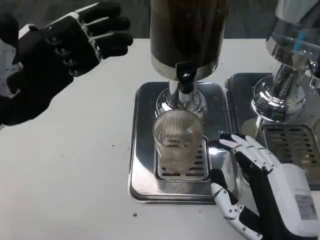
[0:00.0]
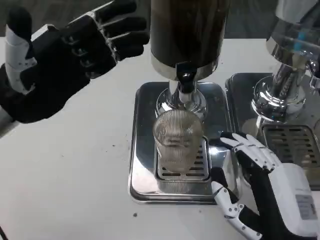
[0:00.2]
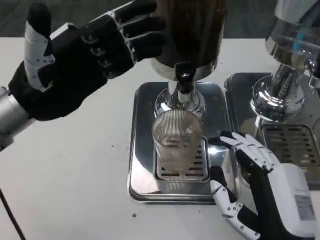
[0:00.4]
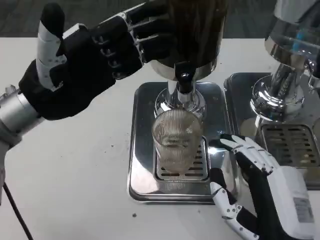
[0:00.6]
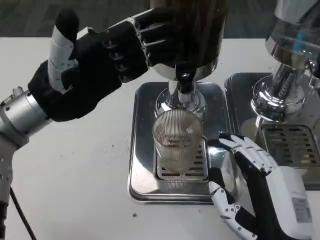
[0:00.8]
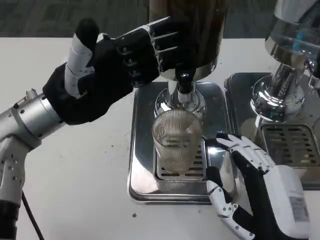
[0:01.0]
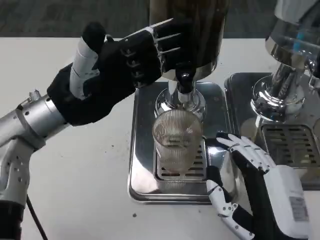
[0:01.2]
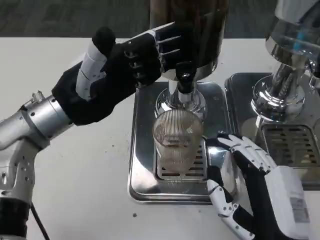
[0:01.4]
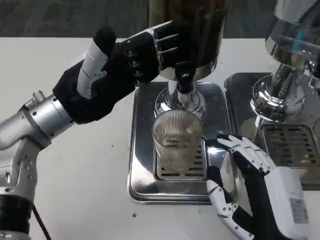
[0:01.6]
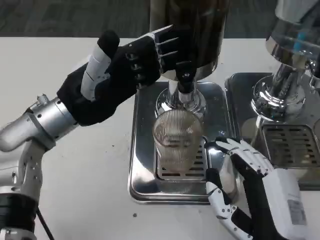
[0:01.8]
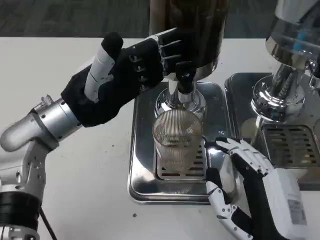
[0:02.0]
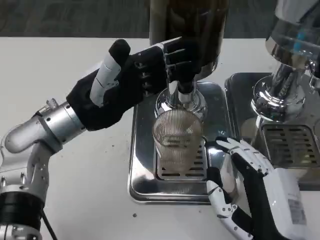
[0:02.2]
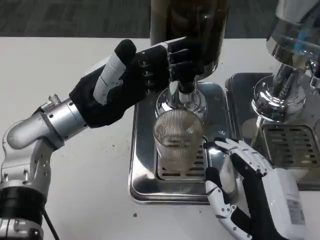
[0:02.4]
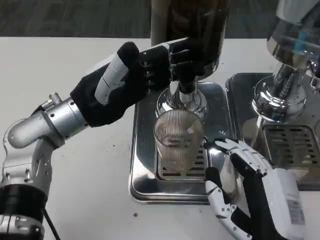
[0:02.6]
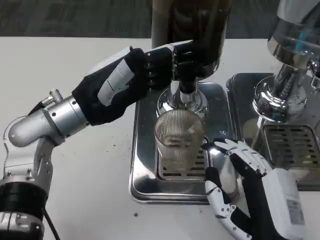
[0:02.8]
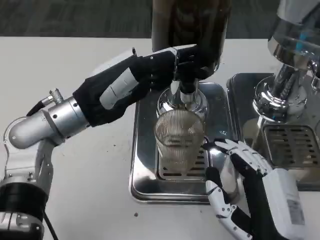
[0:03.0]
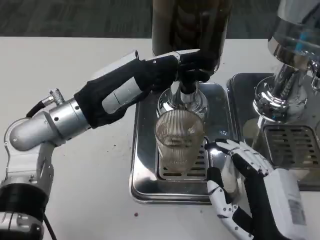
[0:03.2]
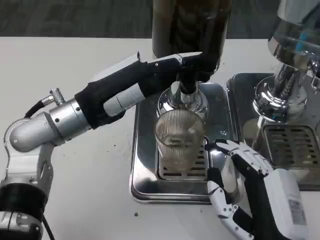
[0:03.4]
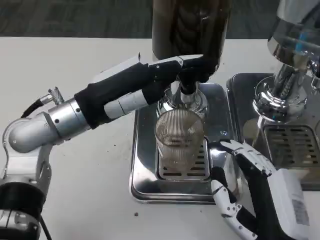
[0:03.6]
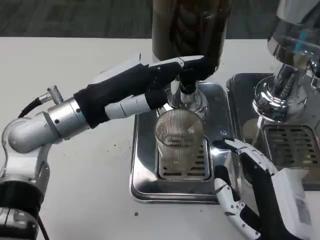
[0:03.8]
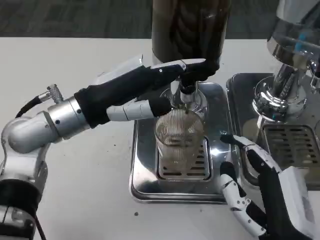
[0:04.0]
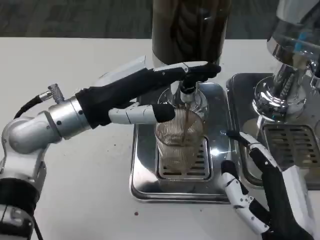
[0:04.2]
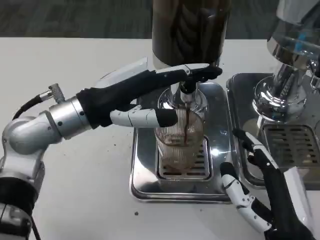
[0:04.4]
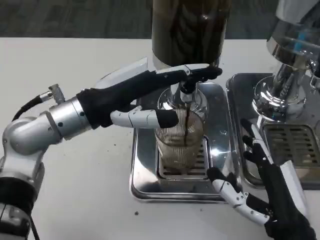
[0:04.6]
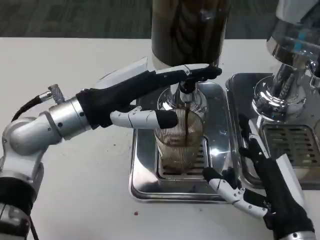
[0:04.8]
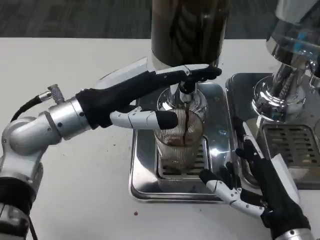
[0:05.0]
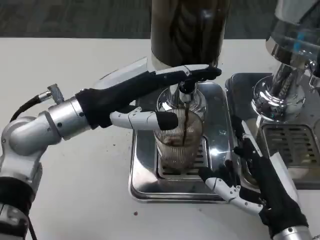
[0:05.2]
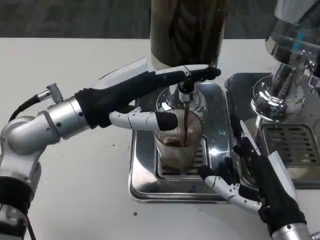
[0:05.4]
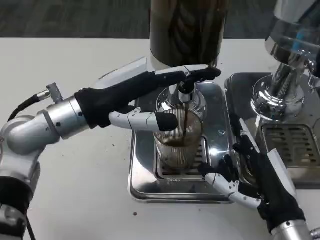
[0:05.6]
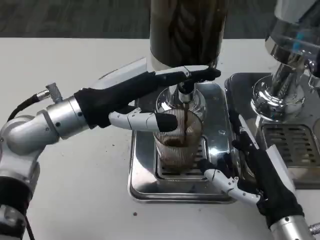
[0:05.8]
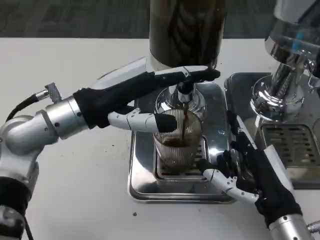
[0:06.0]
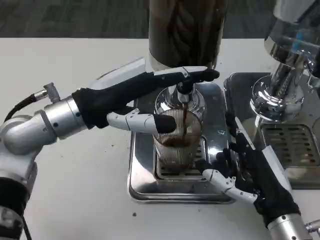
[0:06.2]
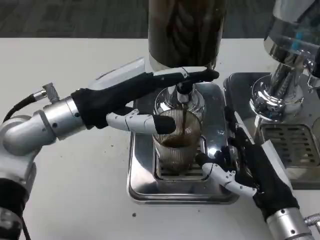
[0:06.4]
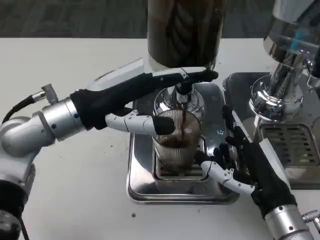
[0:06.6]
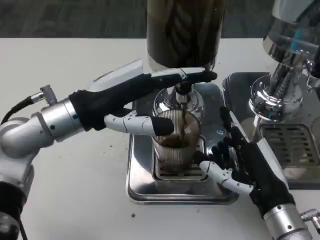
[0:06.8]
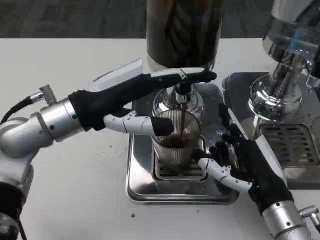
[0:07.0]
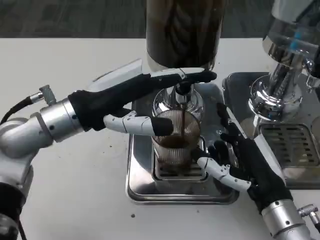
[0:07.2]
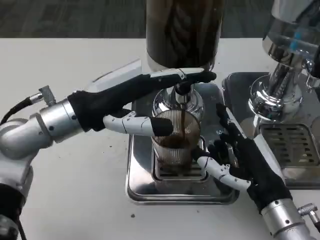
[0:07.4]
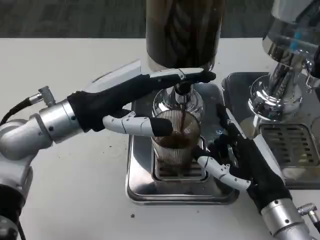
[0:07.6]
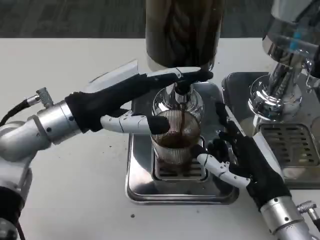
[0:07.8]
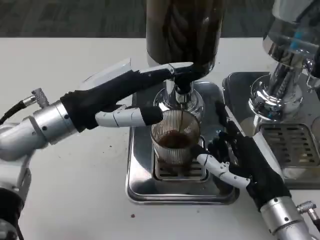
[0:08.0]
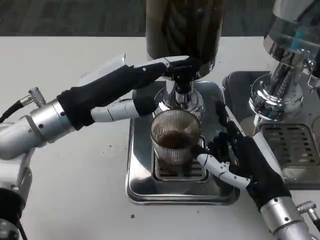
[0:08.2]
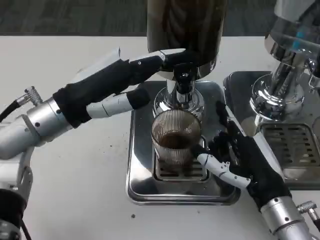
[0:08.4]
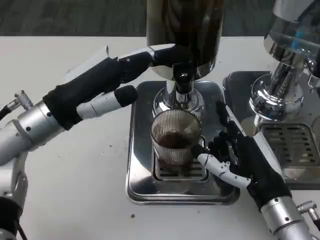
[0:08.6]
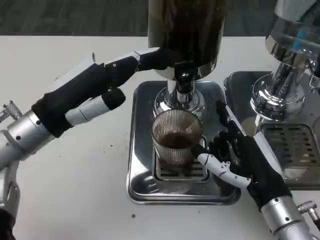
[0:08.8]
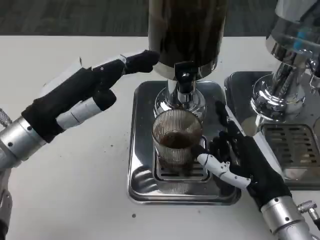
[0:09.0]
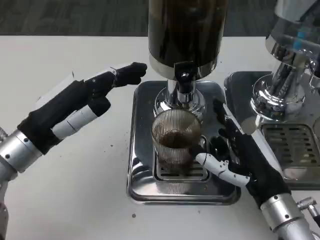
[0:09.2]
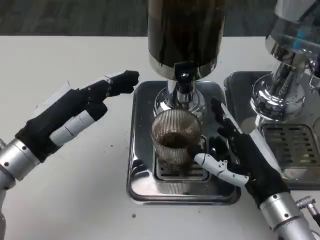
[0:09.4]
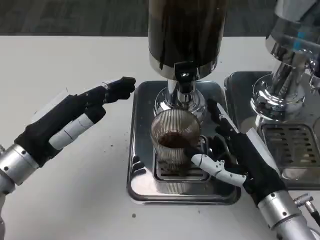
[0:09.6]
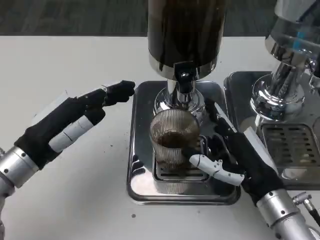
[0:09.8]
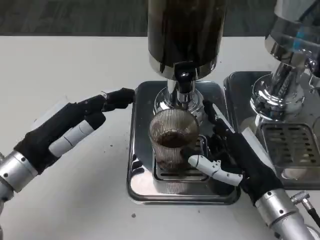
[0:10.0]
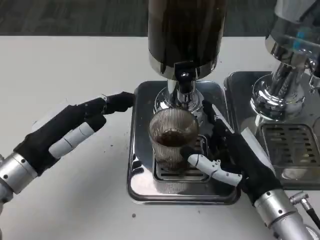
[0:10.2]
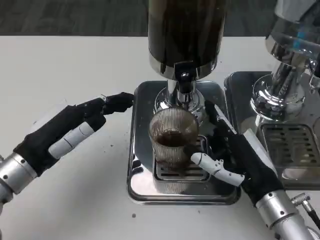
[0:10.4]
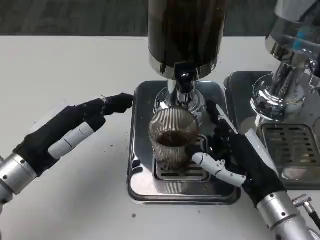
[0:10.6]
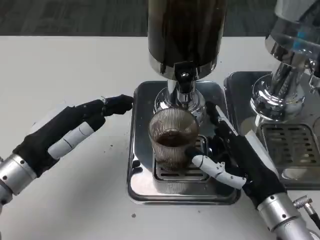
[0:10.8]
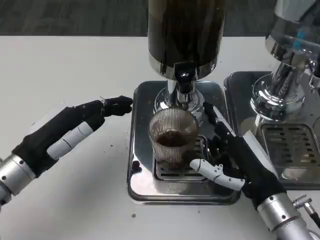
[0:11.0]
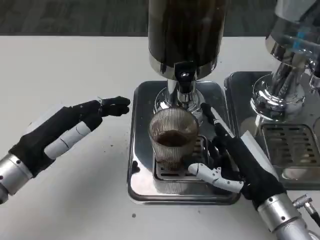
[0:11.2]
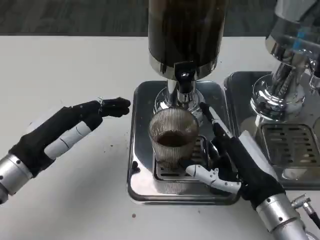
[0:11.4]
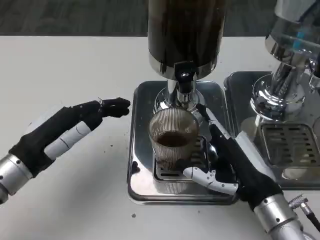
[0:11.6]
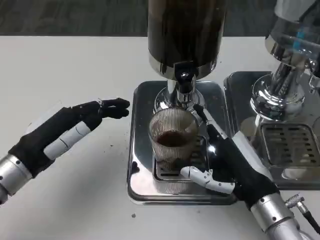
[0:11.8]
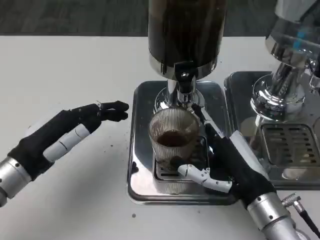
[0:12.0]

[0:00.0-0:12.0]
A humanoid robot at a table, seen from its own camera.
Task of the whole recording: Grasp the cup under the faucet to collect the drink, then remove the cup.
0:00.0 to 0:01.6: The left hand moves to the right, some 5 cm.
0:04.4 to 0:06.0: The right hand moves forward, about 5 cm.
0:07.6 to 0:09.0: The left hand ends up some 5 cm from where it was.
0:09.0 to 0:10.4: The left hand changes place by about 5 cm.
0:10.4 to 0:12.0: The hands stay close to where they were, moving slightly.

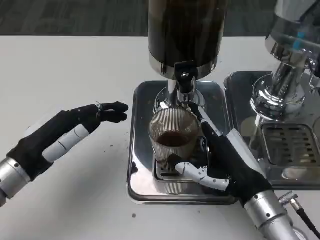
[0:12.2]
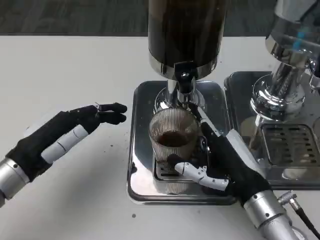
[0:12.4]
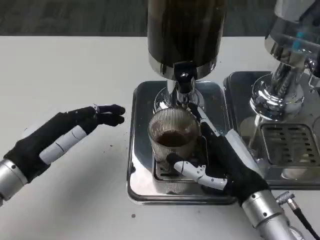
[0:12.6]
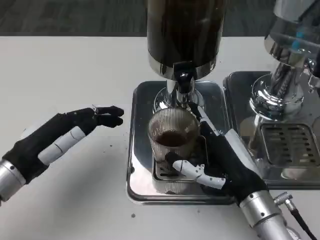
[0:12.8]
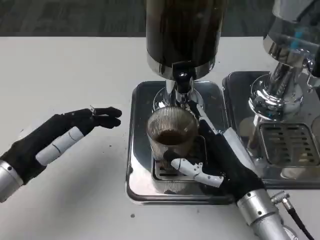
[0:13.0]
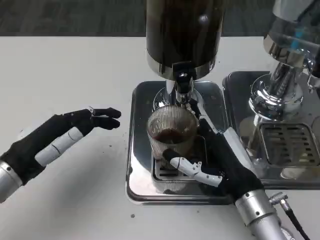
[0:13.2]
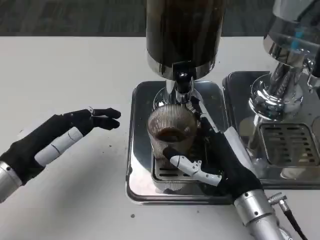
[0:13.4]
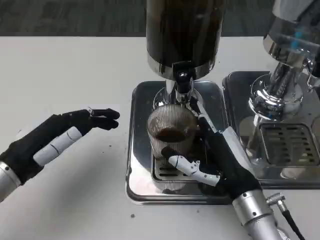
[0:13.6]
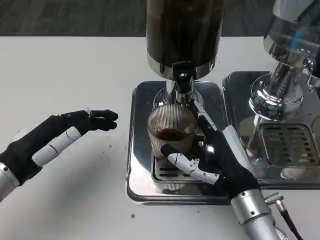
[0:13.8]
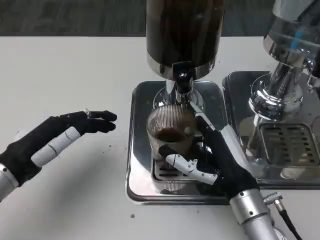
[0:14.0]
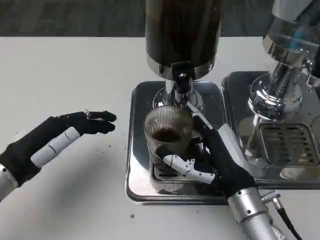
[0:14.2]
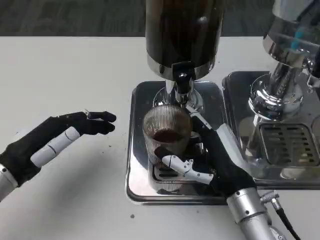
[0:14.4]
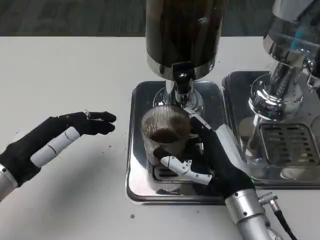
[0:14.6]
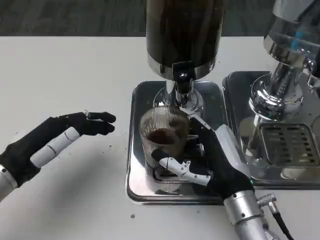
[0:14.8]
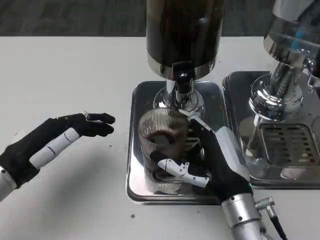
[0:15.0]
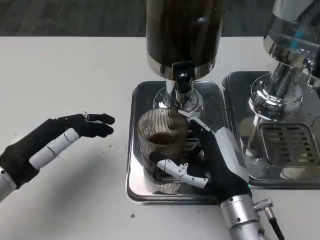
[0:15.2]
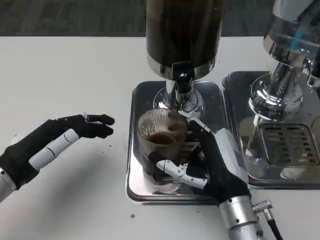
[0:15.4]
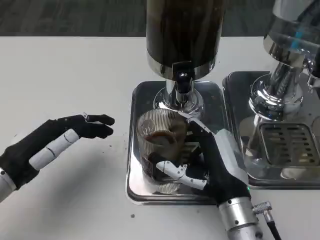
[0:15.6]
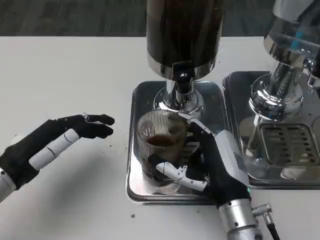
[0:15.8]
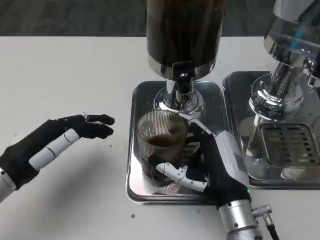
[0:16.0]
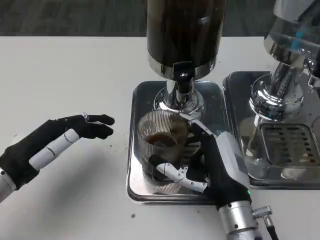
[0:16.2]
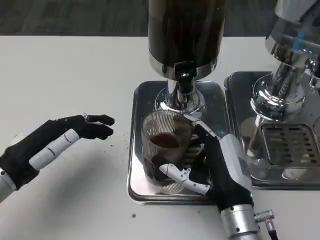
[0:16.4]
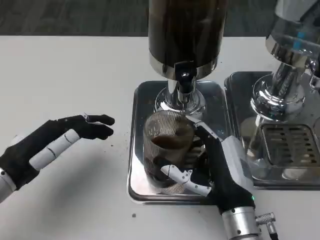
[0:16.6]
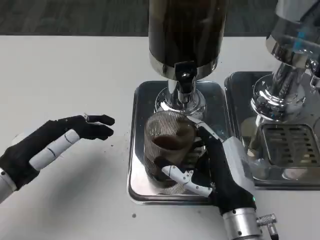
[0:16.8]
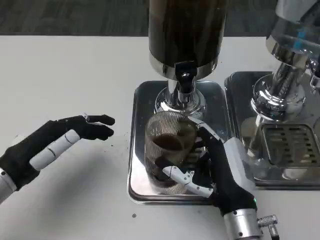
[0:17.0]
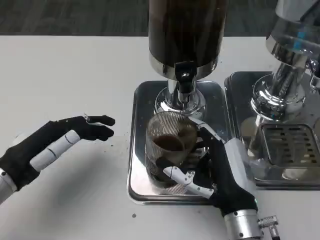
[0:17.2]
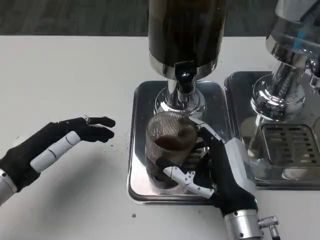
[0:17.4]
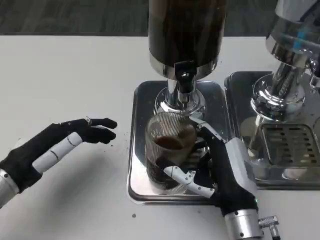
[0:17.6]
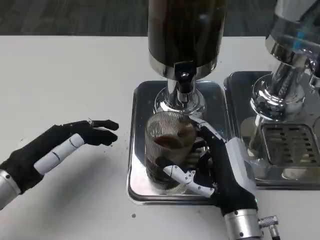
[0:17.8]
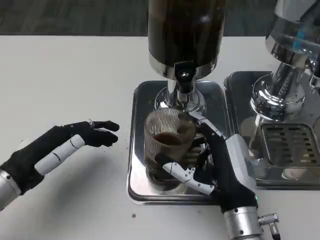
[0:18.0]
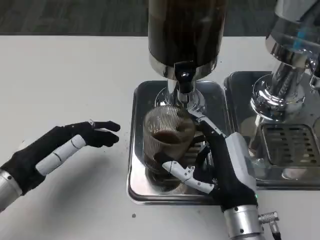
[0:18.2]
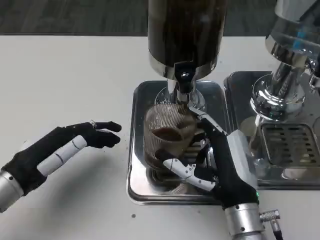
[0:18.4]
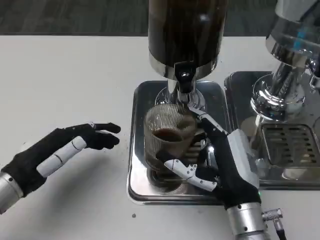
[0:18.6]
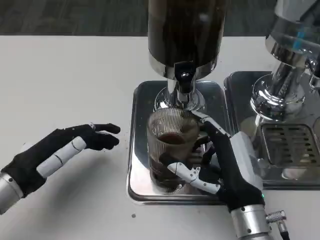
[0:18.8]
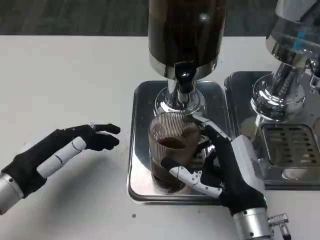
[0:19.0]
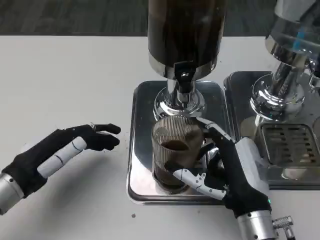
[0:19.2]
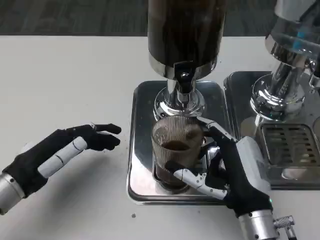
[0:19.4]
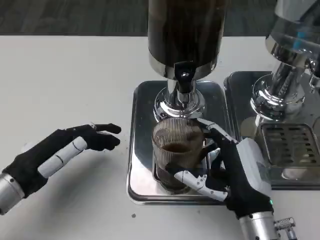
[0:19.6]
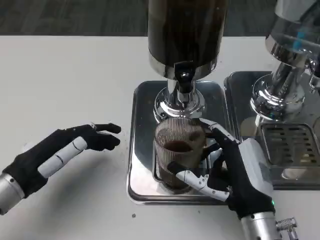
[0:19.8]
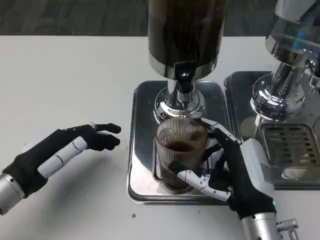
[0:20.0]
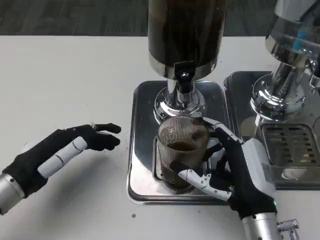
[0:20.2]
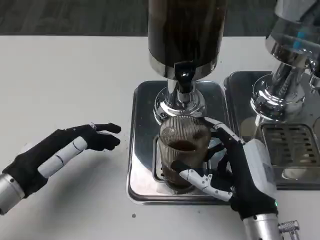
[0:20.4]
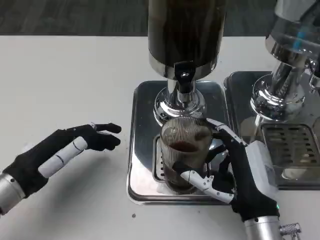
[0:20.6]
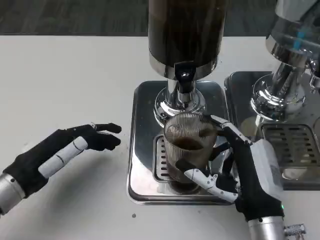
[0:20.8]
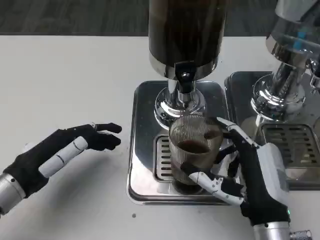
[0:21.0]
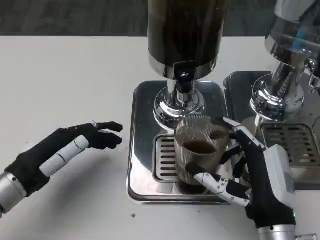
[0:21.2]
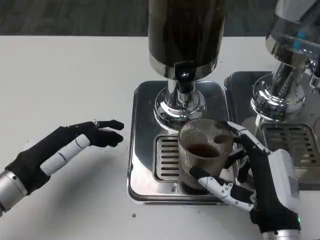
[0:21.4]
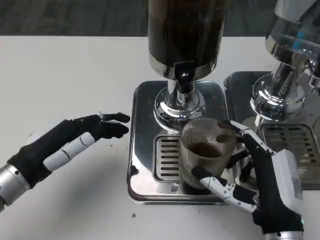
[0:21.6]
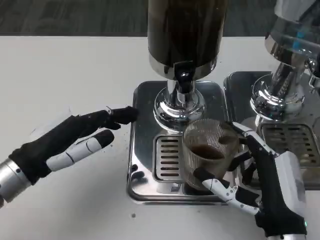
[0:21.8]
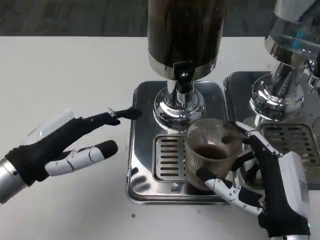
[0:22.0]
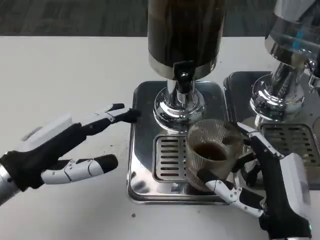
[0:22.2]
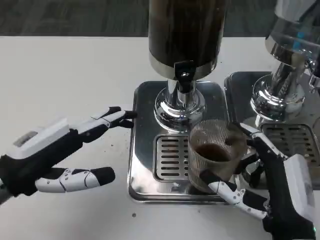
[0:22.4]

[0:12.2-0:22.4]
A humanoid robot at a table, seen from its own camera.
Task of the whole recording: Grasp the cup under the faucet to collect the drink, then remove the cup.
0:12.2 to 0:16.6: There are only small adjustments of the hands.
0:16.6 to 0:18.0: The two hands keep their place.
0:18.0 to 0:21.0: There are only small adjustments of the hands.
0:21.0 to 0:22.4: The left hand heads upward, covering about 5 cm.
